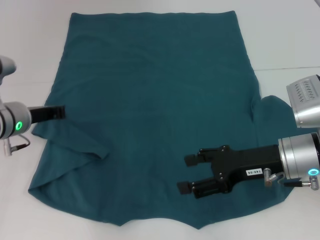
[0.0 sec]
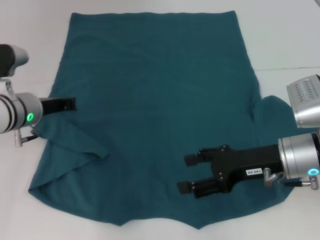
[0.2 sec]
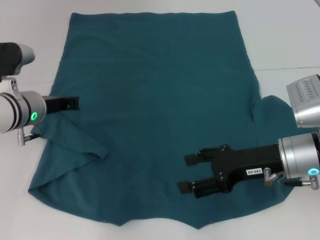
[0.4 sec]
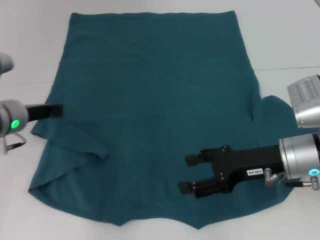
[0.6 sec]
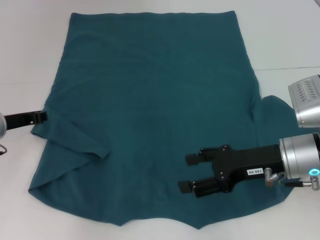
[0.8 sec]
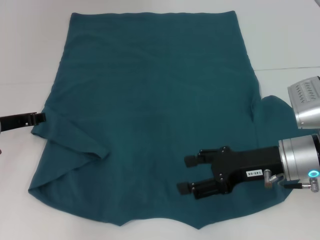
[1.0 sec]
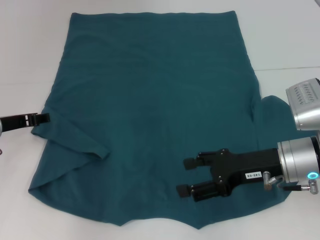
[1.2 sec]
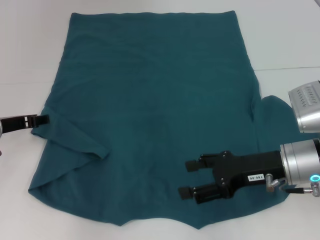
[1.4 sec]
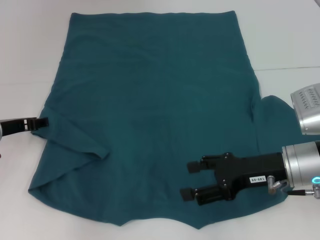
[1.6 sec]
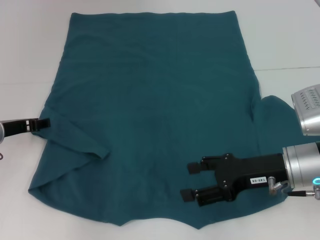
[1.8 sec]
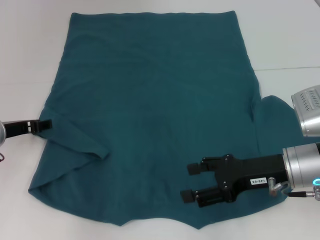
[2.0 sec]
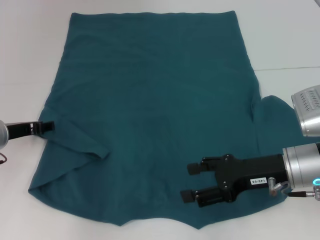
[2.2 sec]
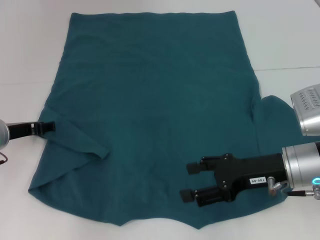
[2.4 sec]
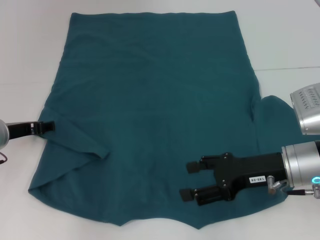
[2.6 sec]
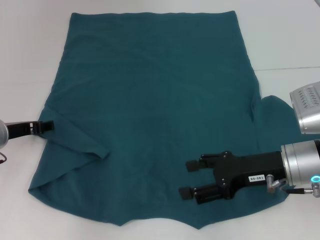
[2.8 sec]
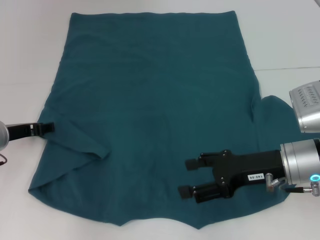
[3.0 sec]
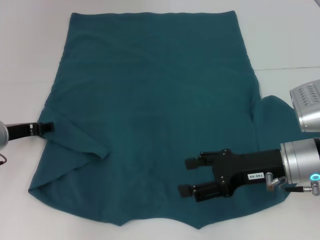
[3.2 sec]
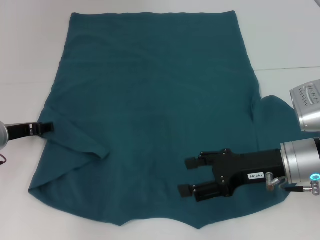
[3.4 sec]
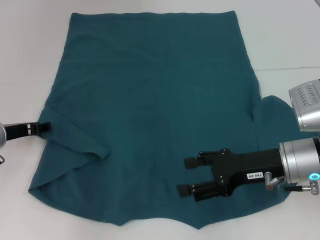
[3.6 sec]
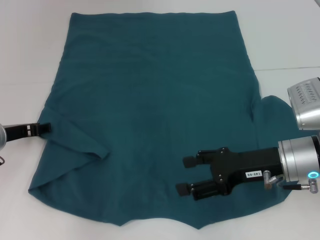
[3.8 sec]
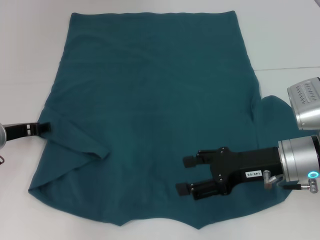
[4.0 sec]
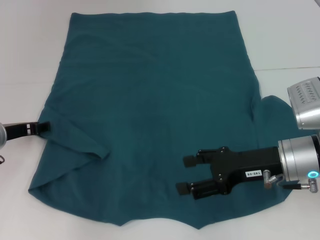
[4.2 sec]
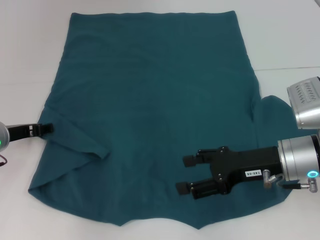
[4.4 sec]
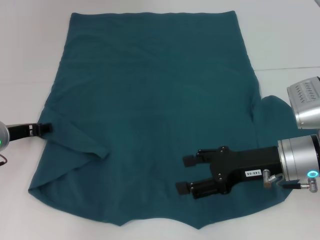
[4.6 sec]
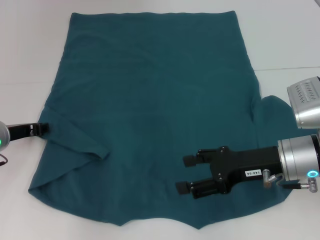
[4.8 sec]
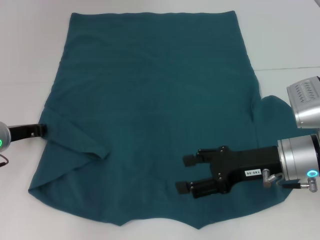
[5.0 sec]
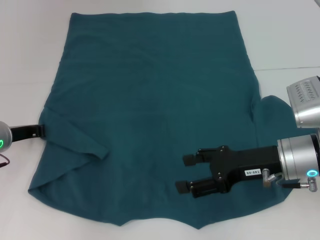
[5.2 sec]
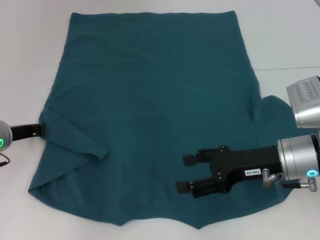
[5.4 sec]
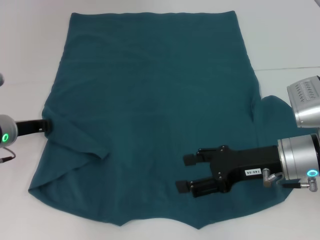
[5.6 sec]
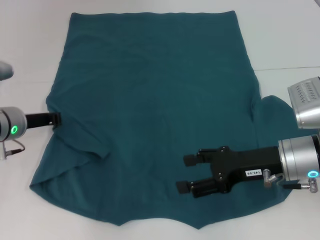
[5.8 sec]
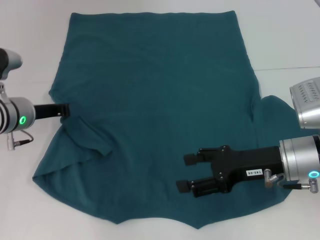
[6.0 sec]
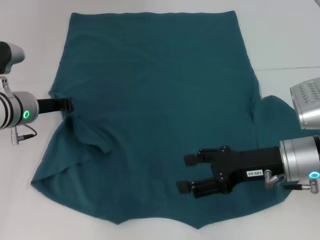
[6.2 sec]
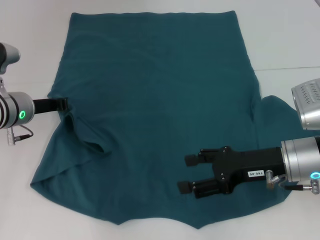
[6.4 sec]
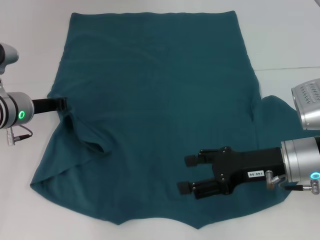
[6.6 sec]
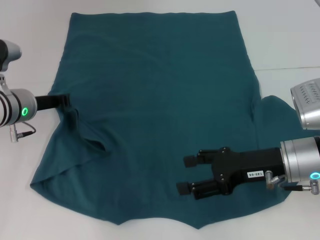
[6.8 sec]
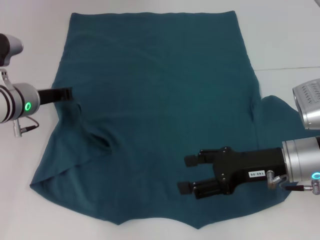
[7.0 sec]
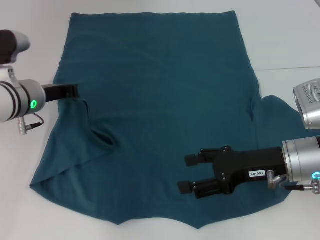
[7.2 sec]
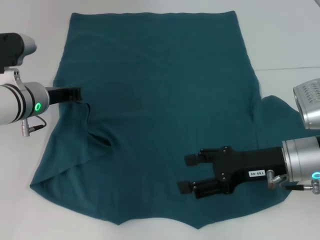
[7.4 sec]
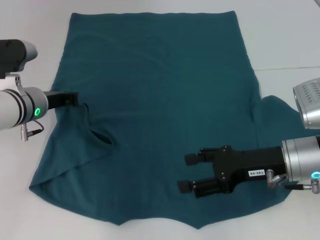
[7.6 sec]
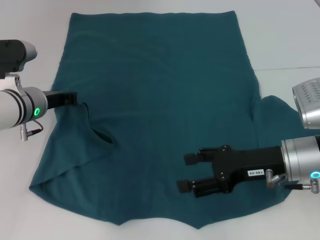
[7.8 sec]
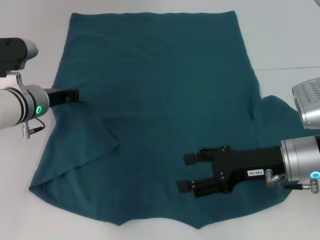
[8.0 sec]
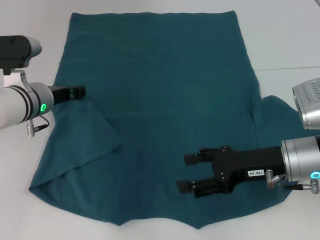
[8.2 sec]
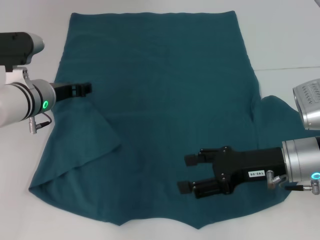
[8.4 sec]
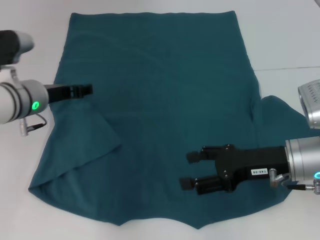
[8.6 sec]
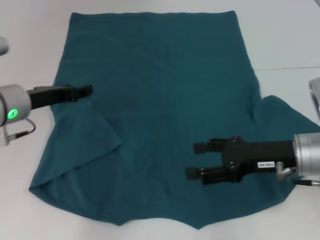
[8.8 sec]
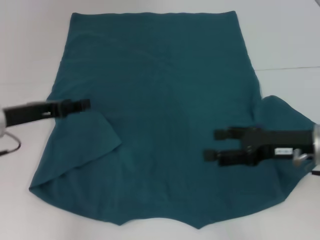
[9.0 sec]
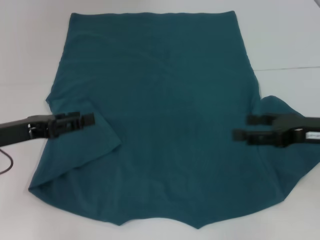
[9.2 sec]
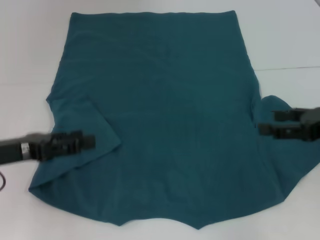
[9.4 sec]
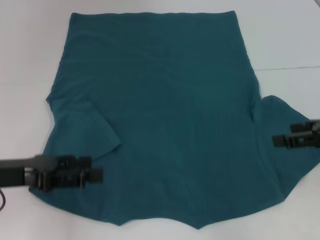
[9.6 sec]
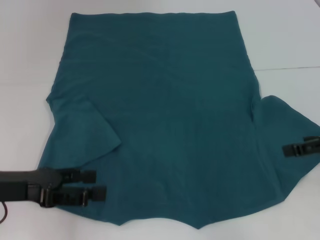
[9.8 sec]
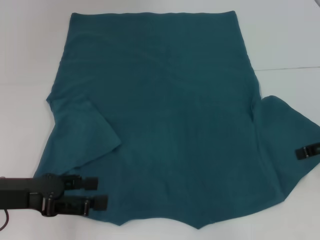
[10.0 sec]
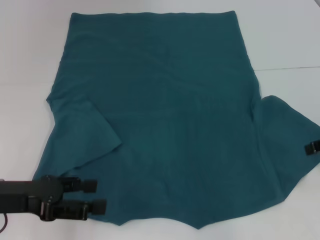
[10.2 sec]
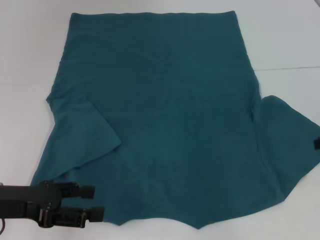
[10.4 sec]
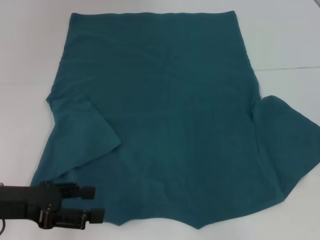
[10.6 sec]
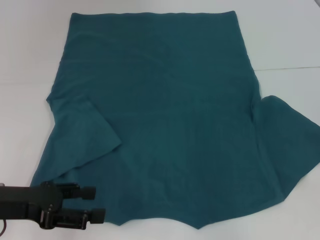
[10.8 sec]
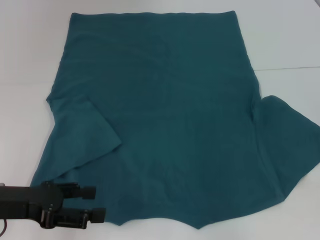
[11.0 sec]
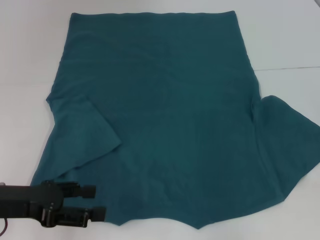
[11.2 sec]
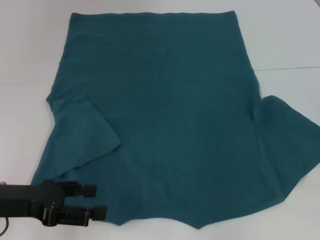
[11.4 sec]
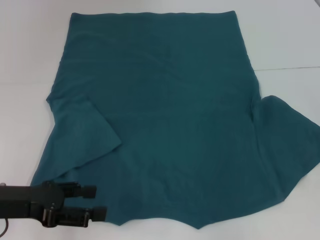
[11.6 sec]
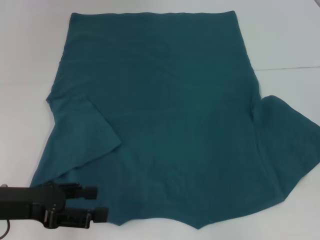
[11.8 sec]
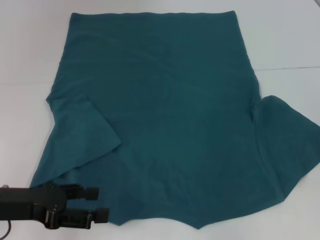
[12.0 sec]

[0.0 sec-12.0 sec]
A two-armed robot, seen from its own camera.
Step, 0.0 sec to 8.6 sec: Fold the bottom left sleeve with your left hand.
0.0 sec to 1.6 sec: The left gripper opens.
1.6 sec to 3.0 sec: Both grippers stay put.
3.0 sec to 4.4 sec: The two grippers keep their place.
4.4 sec to 6.0 sec: The left gripper changes place by some 5 cm, and closes.
6.0 sec to 7.6 sec: The grippers make only small movements.
7.6 sec to 9.0 sec: The left gripper heads backward and to the left, covering roughly 10 cm, and opens.
9.0 sec to 10.4 sec: The left gripper is displaced backward by some 10 cm. Meanwhile the right gripper goes some 10 cm to the right and upward.

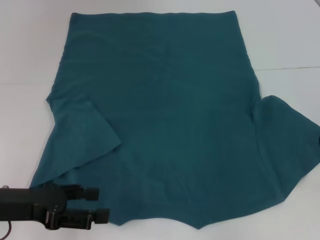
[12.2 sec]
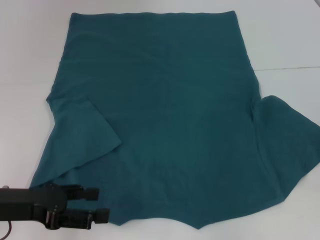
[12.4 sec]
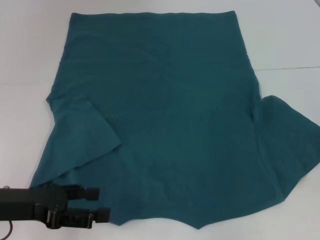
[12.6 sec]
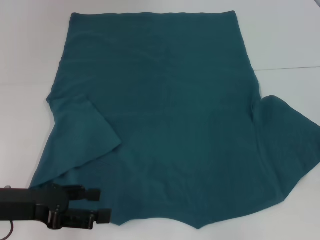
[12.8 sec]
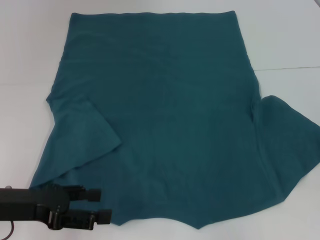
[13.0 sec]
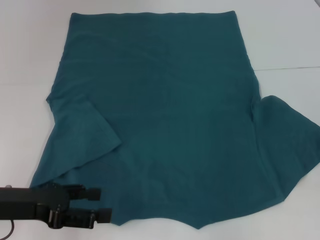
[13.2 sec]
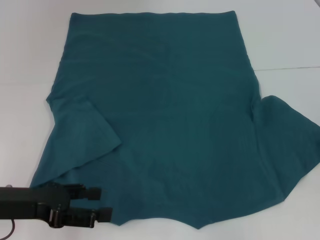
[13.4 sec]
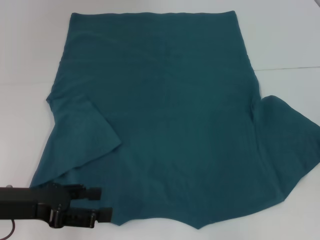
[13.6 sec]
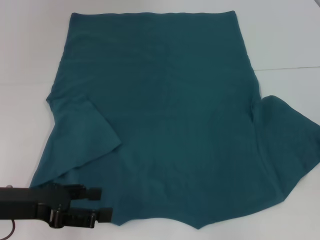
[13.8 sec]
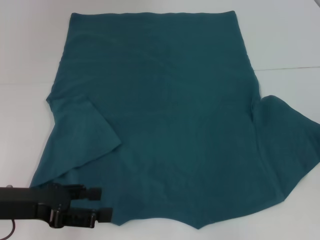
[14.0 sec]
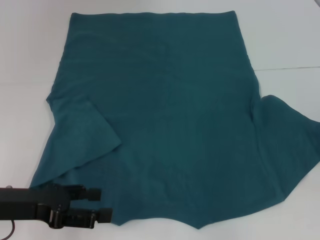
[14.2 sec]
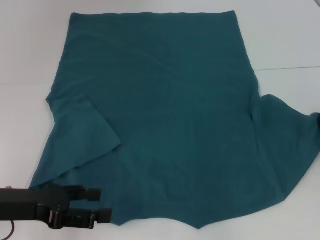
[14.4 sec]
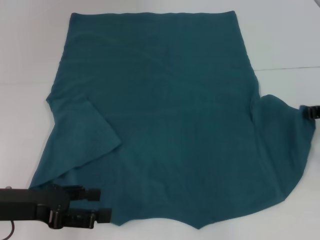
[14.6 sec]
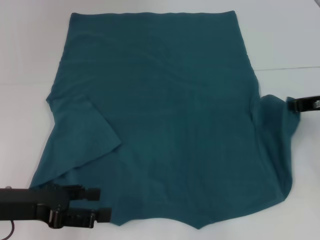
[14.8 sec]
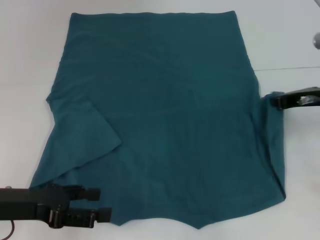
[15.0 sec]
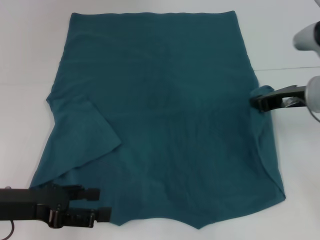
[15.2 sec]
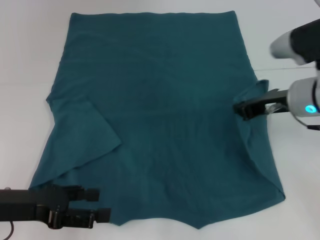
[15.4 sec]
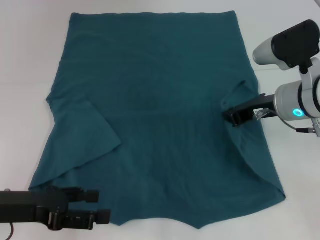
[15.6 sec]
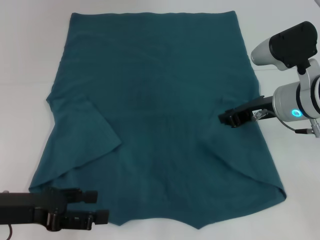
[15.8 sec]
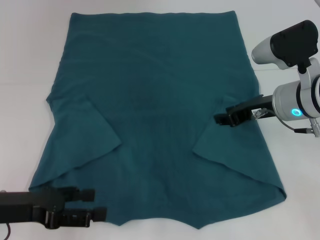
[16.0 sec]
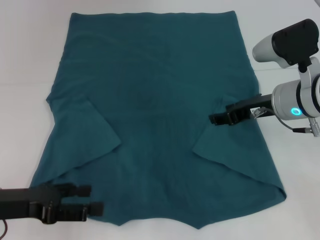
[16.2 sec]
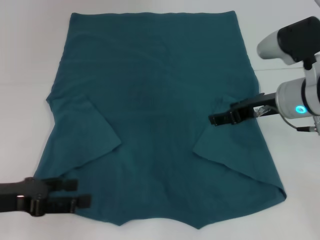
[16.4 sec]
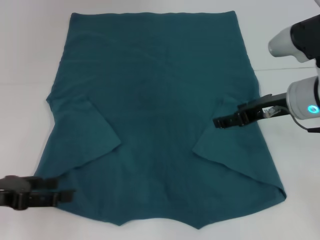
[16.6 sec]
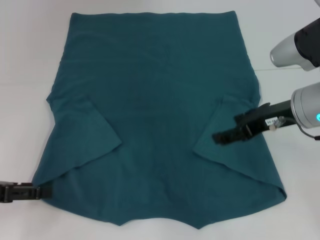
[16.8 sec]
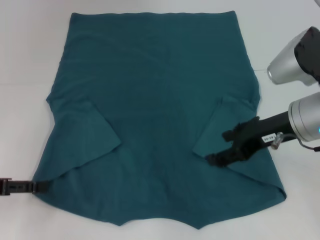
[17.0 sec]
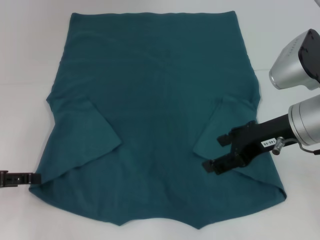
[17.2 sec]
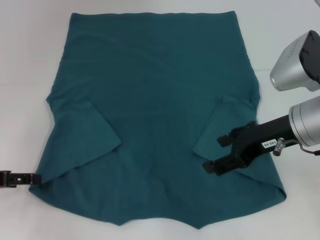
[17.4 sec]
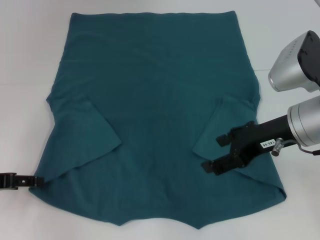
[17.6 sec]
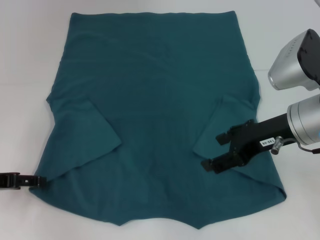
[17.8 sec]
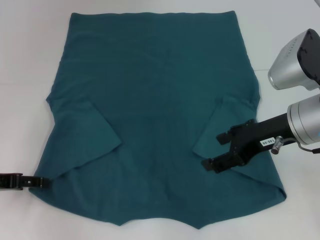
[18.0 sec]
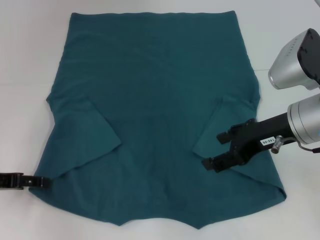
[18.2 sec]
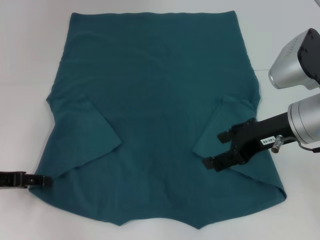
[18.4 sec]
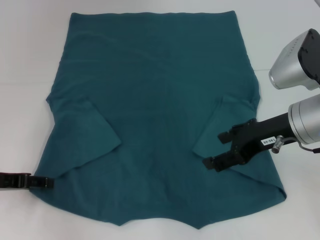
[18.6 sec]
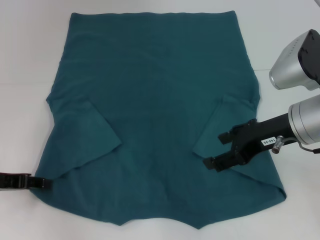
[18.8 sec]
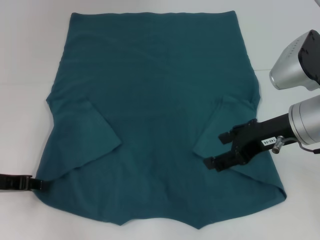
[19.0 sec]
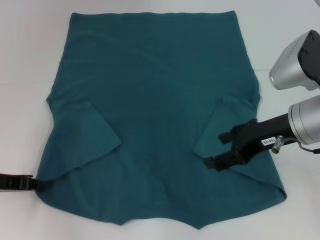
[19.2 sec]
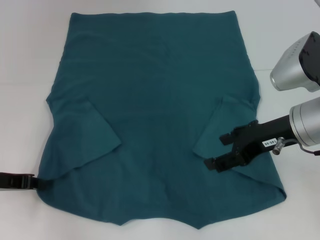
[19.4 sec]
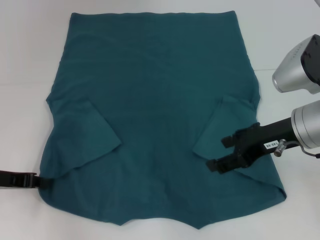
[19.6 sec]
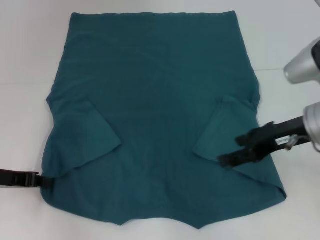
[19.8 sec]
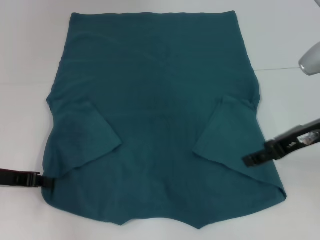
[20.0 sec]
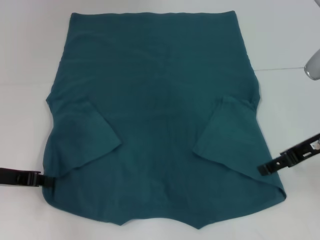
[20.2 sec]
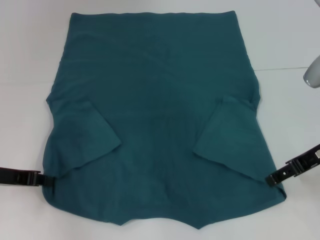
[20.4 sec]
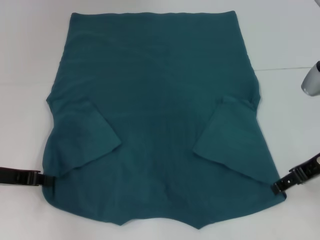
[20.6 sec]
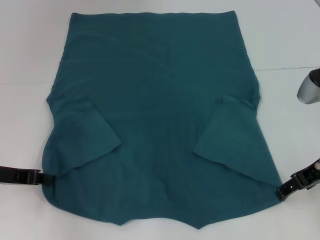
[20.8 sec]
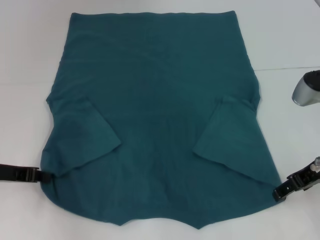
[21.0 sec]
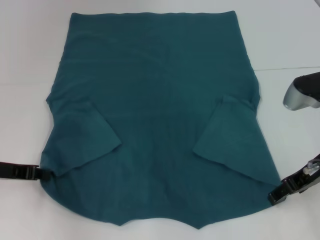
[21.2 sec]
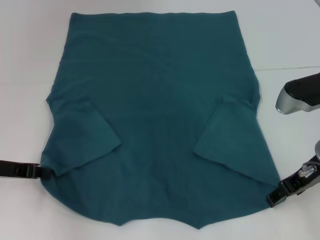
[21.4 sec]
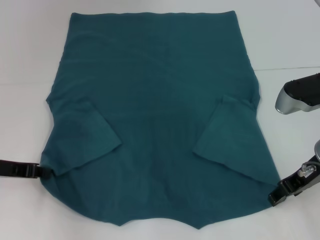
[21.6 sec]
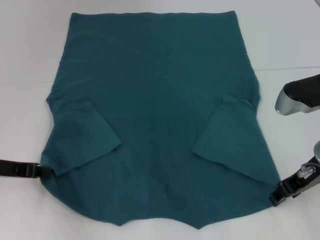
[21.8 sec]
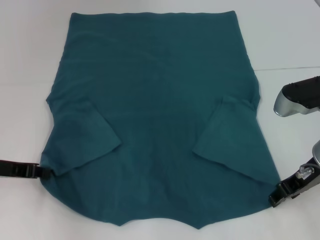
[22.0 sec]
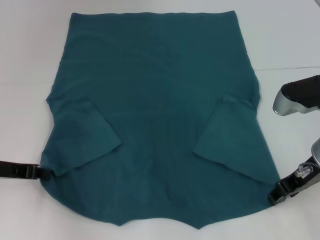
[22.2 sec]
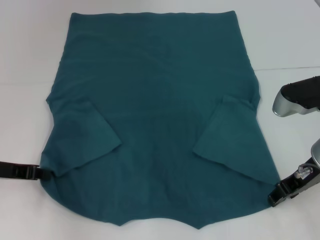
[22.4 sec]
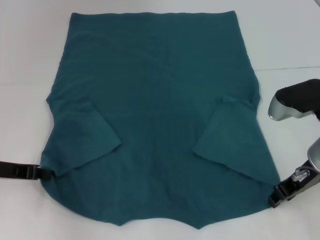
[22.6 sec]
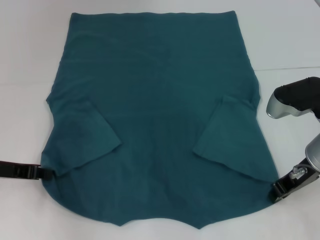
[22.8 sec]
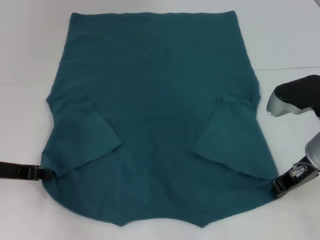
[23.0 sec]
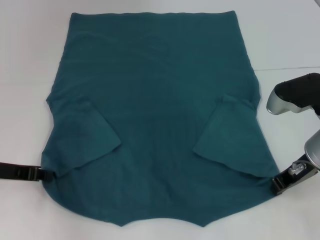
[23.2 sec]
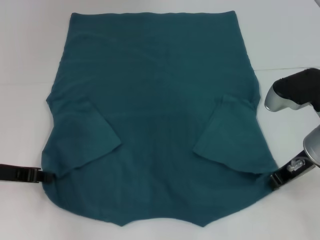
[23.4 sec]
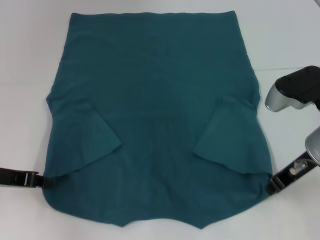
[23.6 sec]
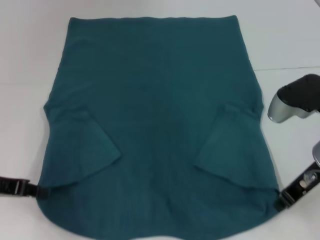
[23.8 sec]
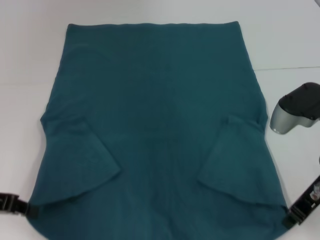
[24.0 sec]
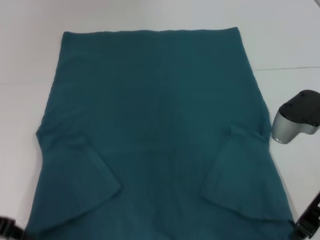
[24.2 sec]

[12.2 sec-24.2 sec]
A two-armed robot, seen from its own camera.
Step, 12.2 sec to 16.2 sec: Fold the bottom right sleeve to the right.
Step, 16.4 sec to 19.2 sec: Grab the bottom left corner with your left hand.
Step, 19.4 sec to 23.0 sec: Grab the bottom right corner with your right hand.
12.2 sec to 13.8 sec: The grippers make only small movements.
13.8 sec to 15.2 sec: The right gripper moves to the left and upward, roughly 15 cm, and closes up.
15.2 sec to 16.6 sec: The right gripper opens up.
16.6 sec to 18.2 sec: The left gripper shifts by some 5 cm.
18.2 sec to 19.8 sec: The left gripper closes its fingers.
21.2 sec to 22.6 sec: The grippers move only a little.
22.6 sec to 24.2 sec: The left gripper ends up some 5 cm from where it was. The right gripper moves some 5 cm, and closes.
